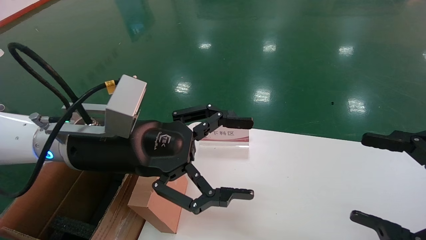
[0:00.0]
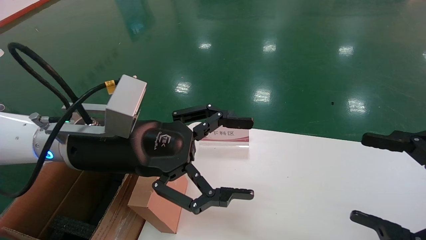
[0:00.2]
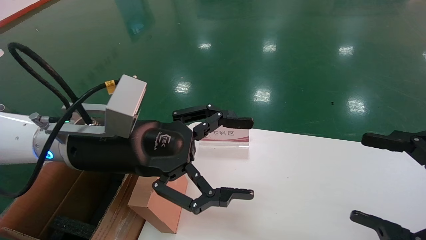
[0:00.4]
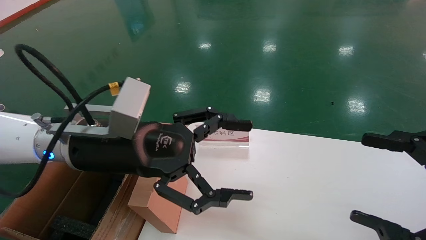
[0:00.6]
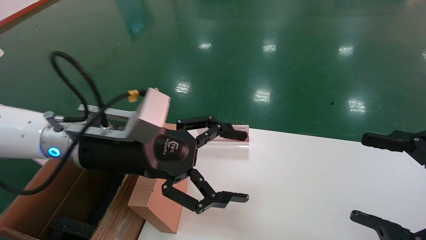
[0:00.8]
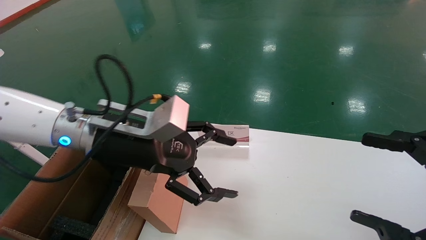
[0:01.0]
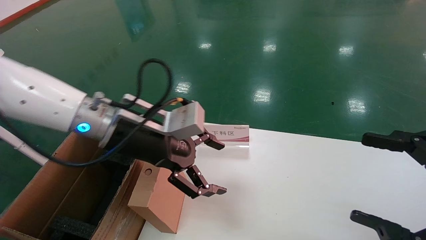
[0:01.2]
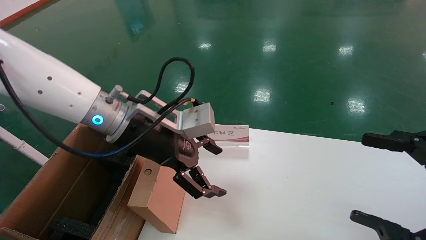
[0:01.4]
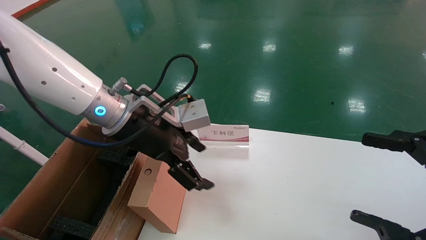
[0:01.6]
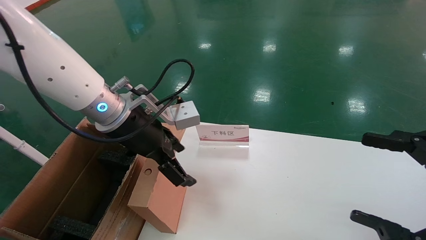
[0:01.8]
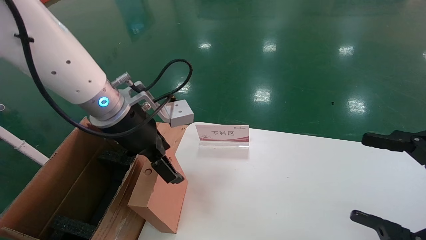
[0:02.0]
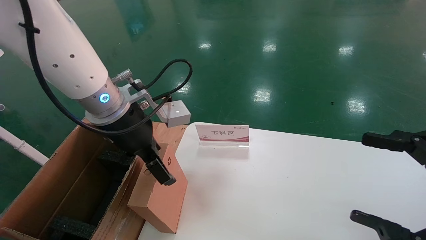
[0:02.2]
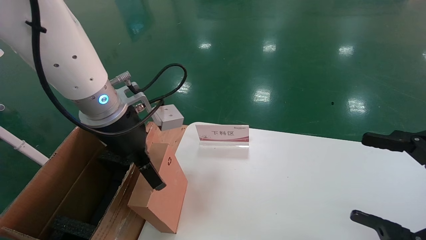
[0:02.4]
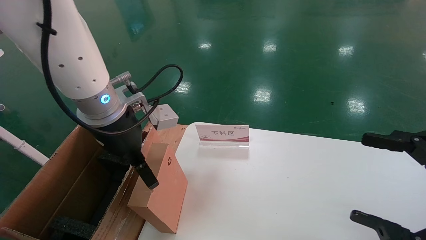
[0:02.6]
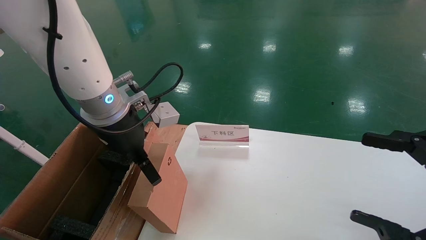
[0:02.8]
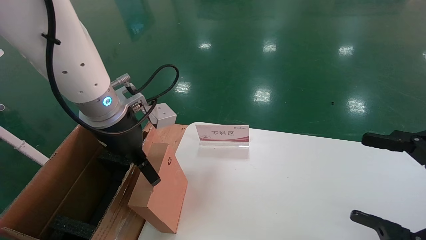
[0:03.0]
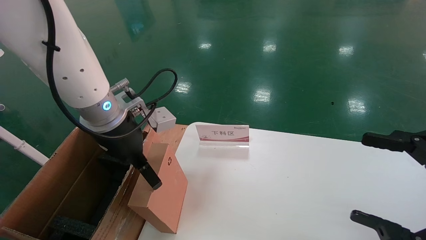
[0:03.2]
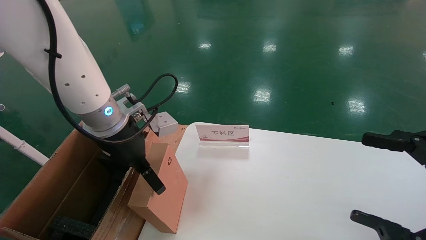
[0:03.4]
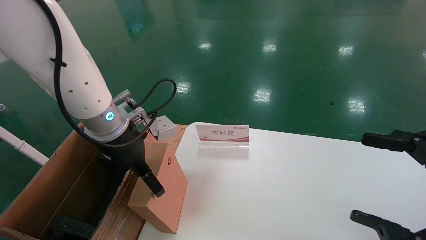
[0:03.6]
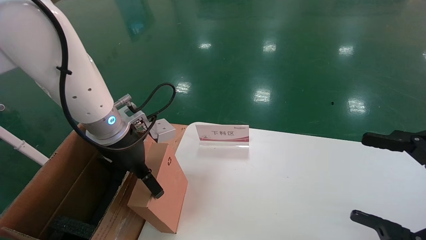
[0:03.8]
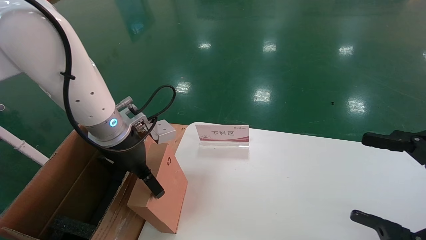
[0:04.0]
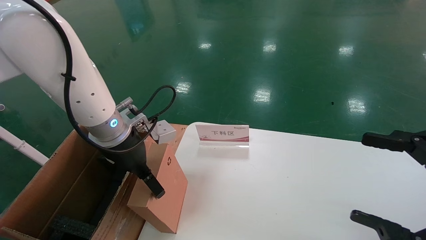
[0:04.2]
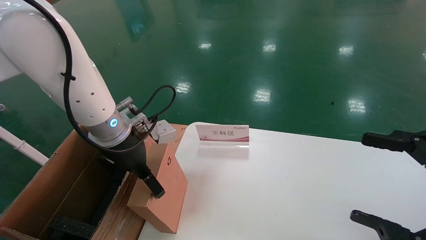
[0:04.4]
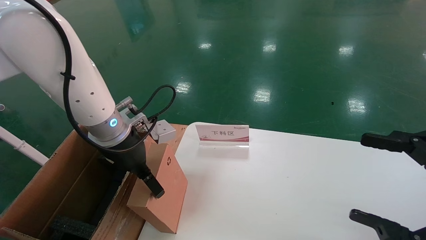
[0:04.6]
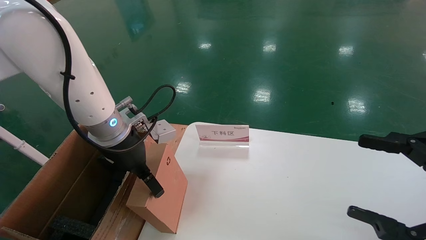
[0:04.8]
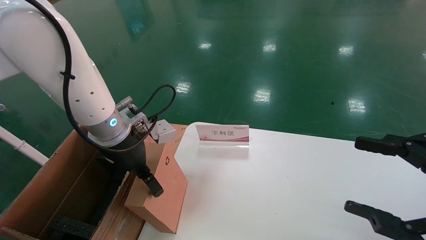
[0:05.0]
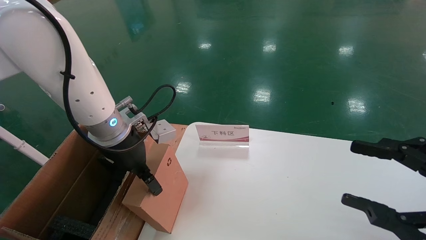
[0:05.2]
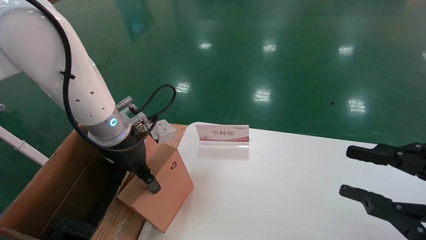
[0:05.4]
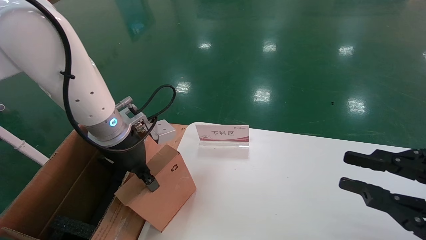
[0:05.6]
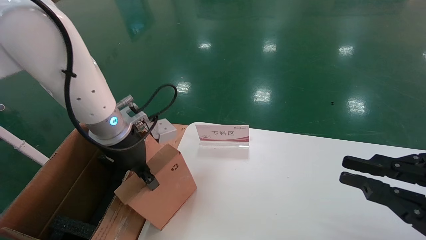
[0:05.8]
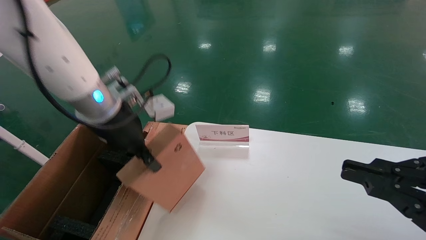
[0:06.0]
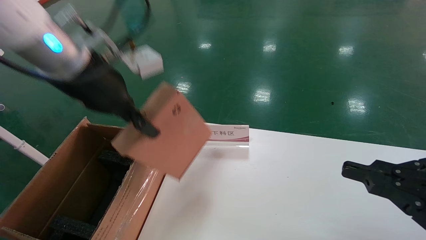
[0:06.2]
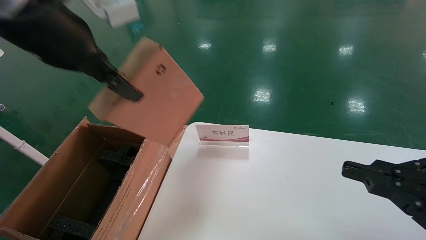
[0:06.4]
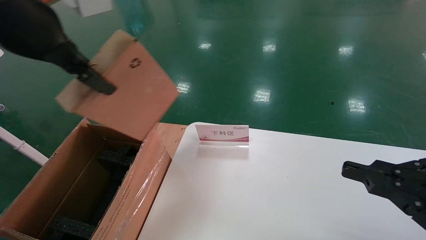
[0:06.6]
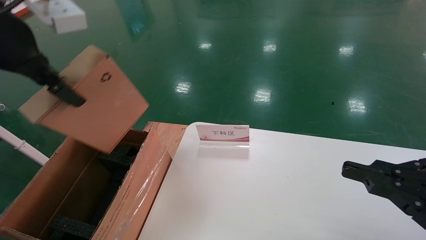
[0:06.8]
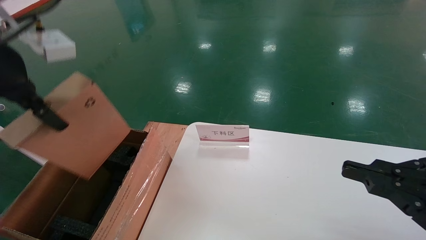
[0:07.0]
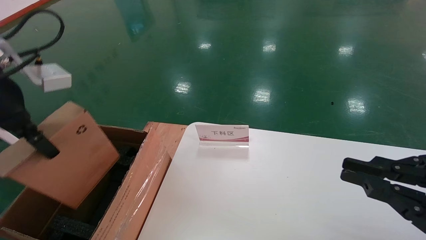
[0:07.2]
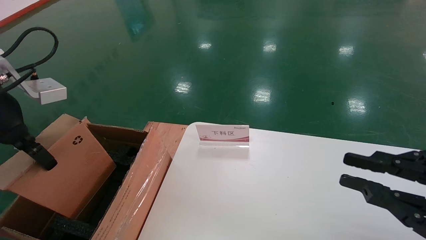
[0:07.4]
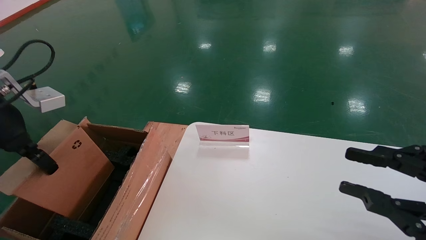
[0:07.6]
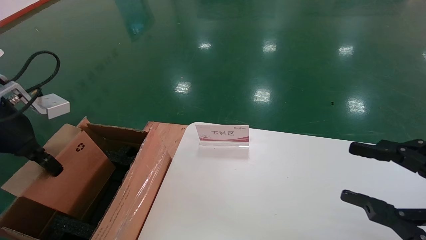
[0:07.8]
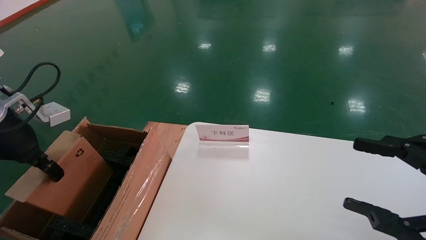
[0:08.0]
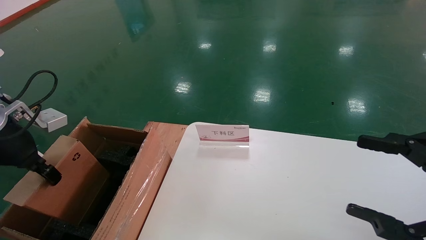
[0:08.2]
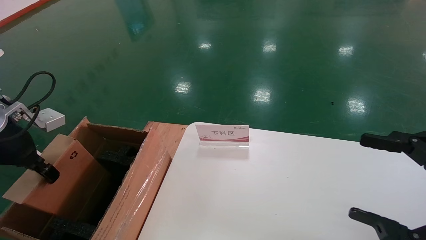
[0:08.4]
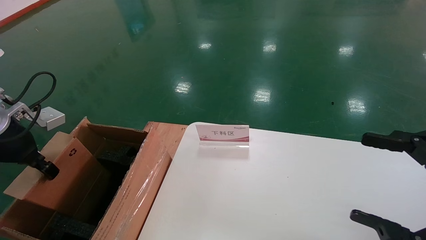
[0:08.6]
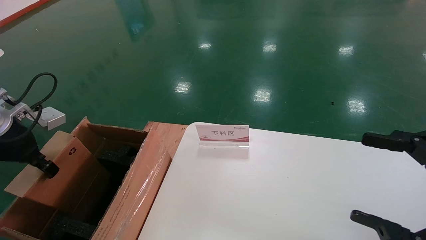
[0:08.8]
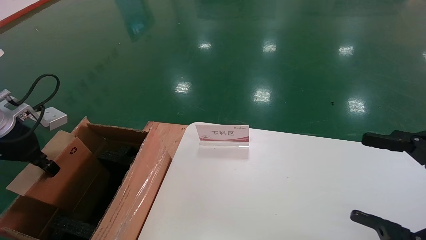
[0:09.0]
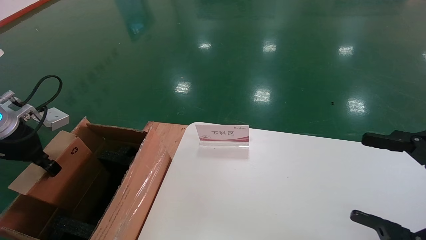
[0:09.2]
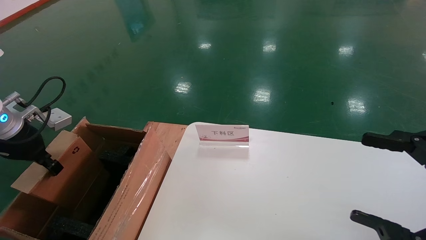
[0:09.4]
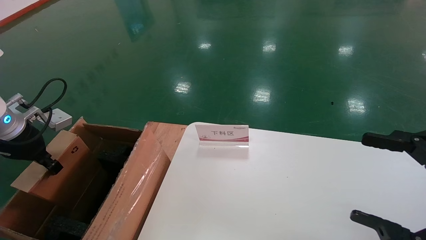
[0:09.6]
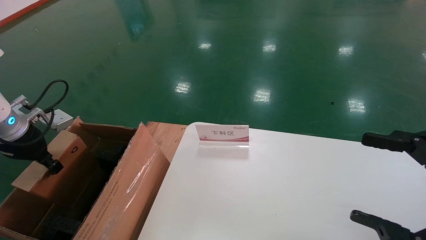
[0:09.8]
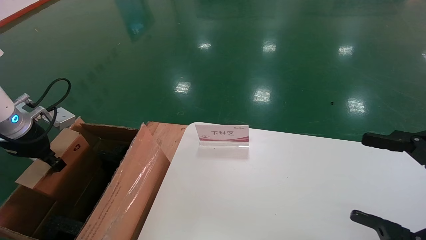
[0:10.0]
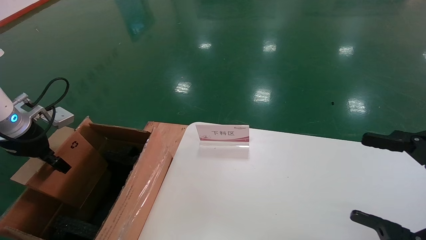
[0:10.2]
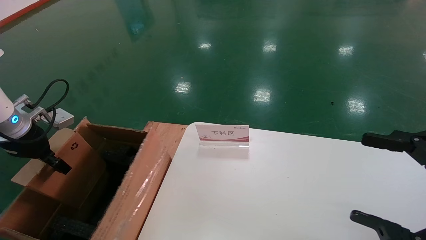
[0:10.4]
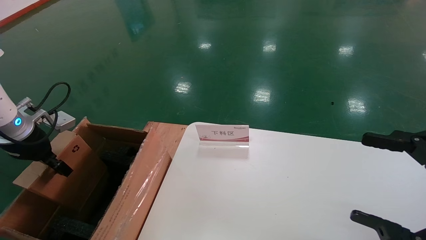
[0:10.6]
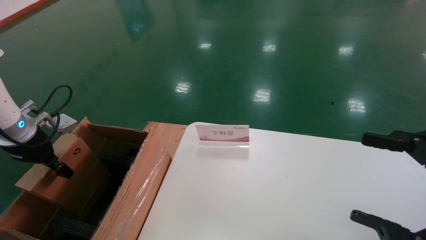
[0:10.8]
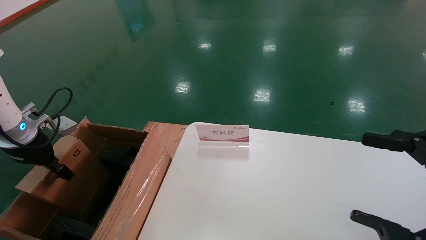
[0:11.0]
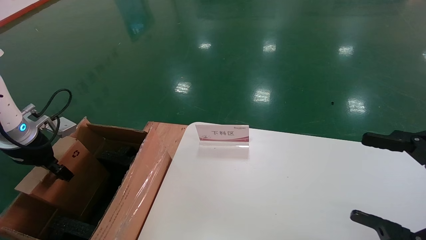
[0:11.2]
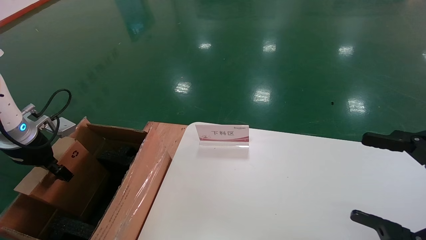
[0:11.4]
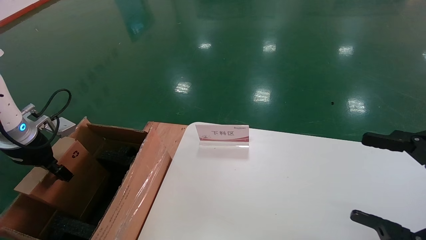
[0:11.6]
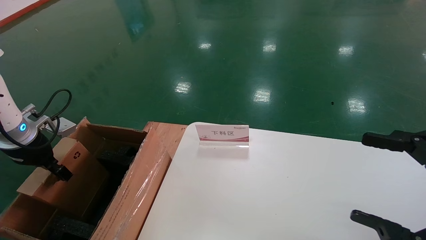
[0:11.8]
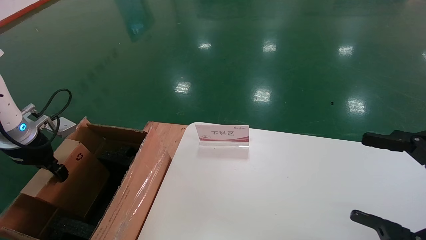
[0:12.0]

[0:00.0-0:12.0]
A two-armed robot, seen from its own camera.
Task of the whole recording: pick up the small cardboard box and load it into the large cardboard box.
Step, 0:01.2 to 0:09.8: Pick up the mouse and power cord box.
0:00.0 to 0:01.6: The left gripper travels forward by about 5 cm.
0:03.0 to 0:04.4: The grippers make only small movements.
0:04.4 to 0:06.0: The right gripper closes its fingers. The left gripper goes approximately 5 cm upward, and closes up.
0:06.0 to 0:07.6: The left gripper shifts some 15 cm to the left and backward.
0:07.6 to 0:09.0: The left gripper heads downward and to the left, covering approximately 10 cm. Meanwhile the right gripper opens its fingers.
0:09.0 to 0:10.4: There are only small adjustments of the grippers.
0:10.4 to 0:12.0: There are only small adjustments of the grippers.

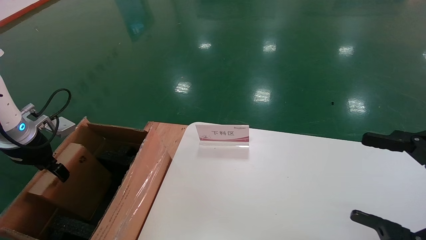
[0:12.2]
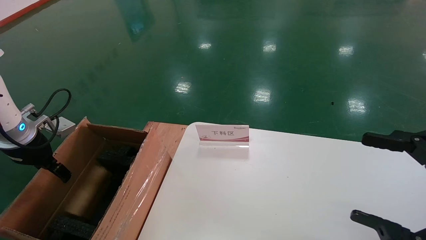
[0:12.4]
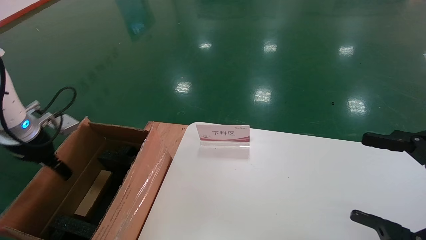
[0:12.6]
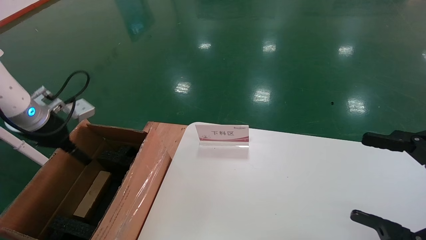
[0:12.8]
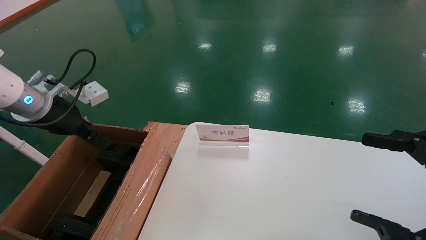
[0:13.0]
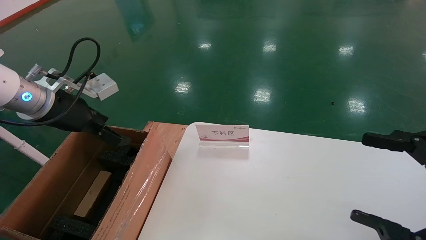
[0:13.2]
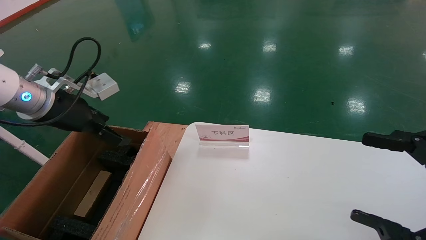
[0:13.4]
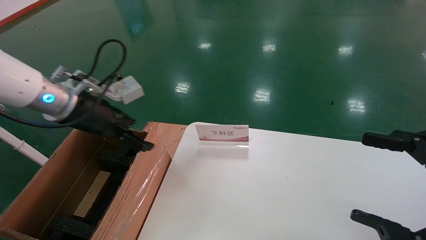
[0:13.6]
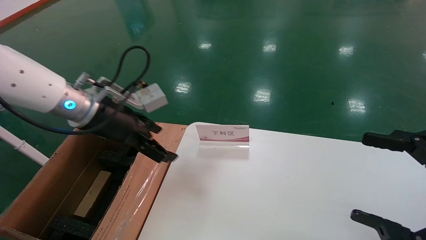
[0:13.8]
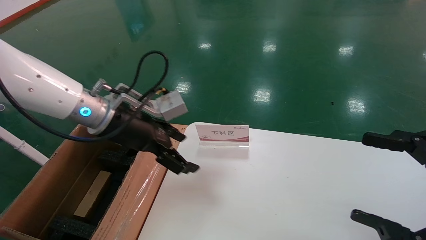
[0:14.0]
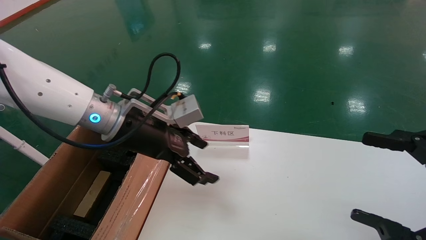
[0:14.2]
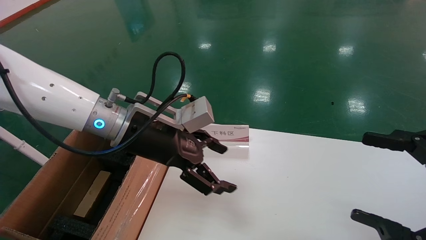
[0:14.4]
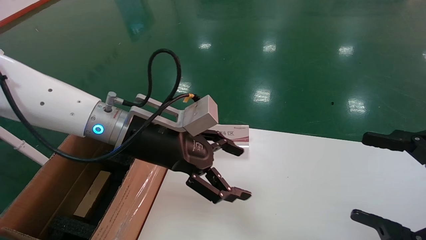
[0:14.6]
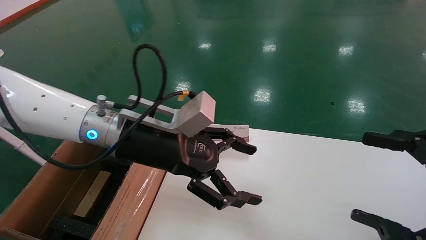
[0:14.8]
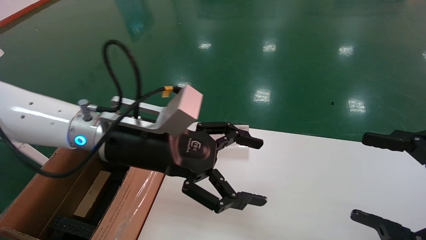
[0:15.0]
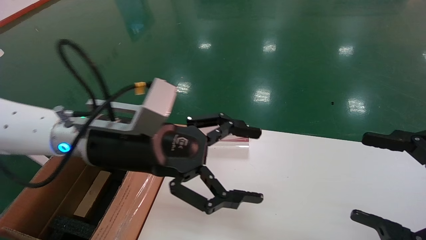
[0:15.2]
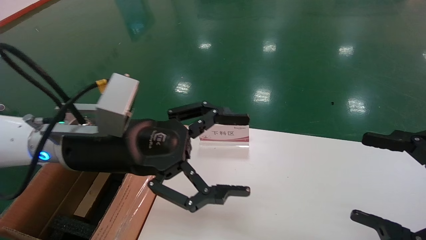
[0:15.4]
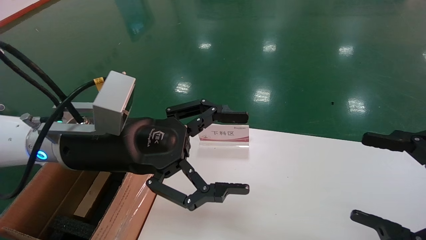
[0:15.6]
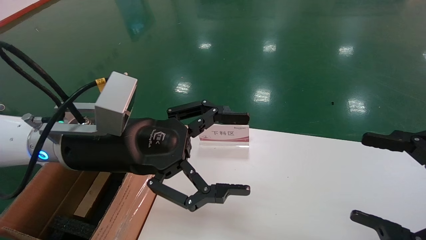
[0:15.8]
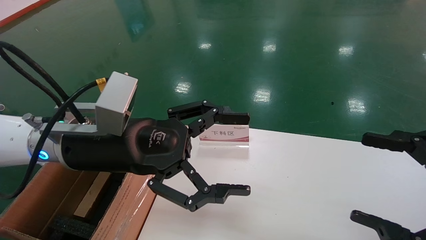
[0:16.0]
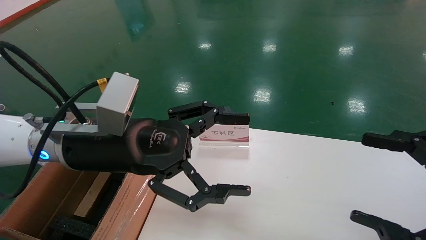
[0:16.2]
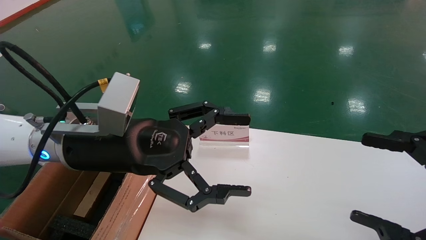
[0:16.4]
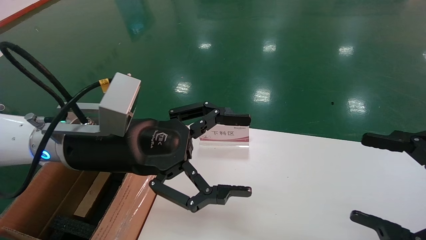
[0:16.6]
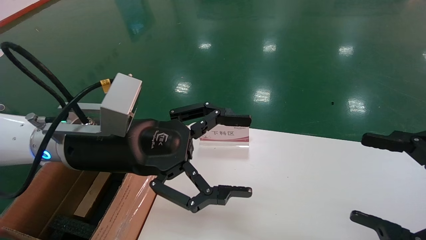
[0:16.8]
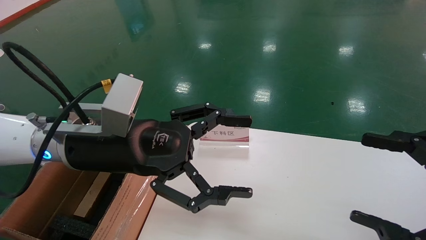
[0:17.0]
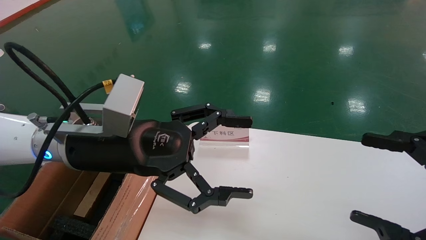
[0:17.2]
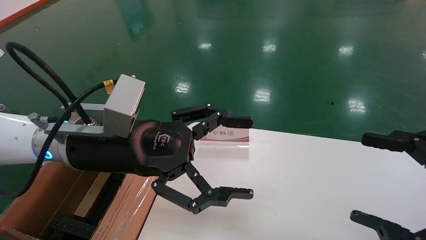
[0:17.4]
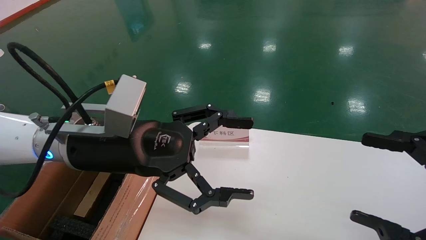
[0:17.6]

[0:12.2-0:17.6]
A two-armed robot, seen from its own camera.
Task of the whole recording: pick up the small cardboard box and load it into the large cardboard box.
Step, 0:12.2 to 0:17.0: Place the mouse and power cord box into the case.
0:12.2 to 0:13.6: The left gripper heads to the right and upward, covering roughly 20 cm, and opens its fingers.
0:13.6 to 0:15.0: The left gripper is displaced to the right by approximately 15 cm.
0:15.0 to 0:16.2: There are only small adjustments of the grippers.
0:16.2 to 0:17.6: The two grippers keep their place.
